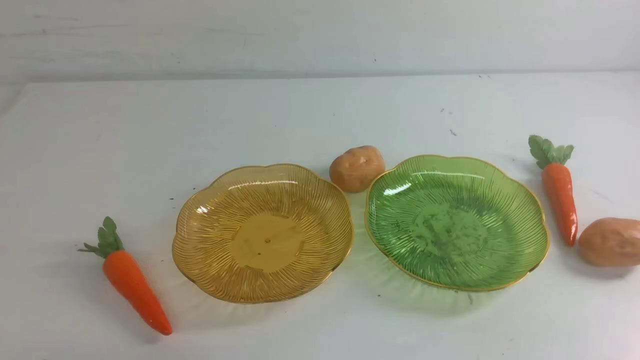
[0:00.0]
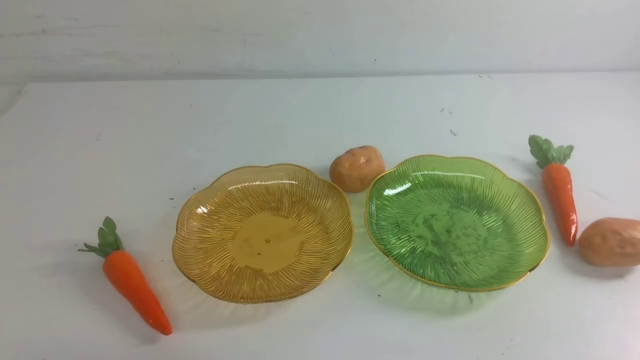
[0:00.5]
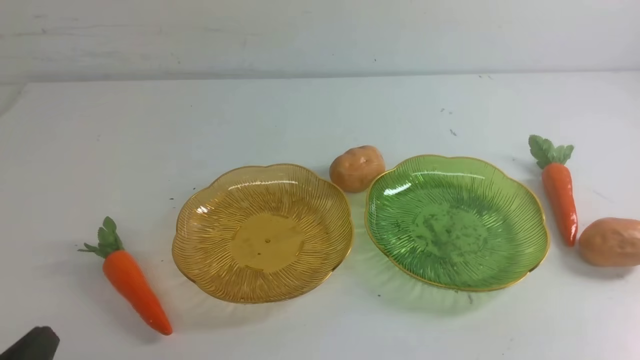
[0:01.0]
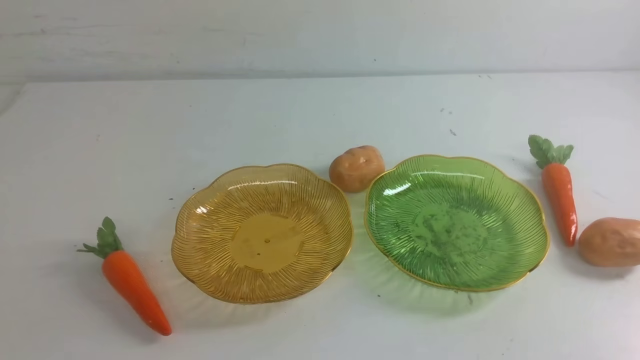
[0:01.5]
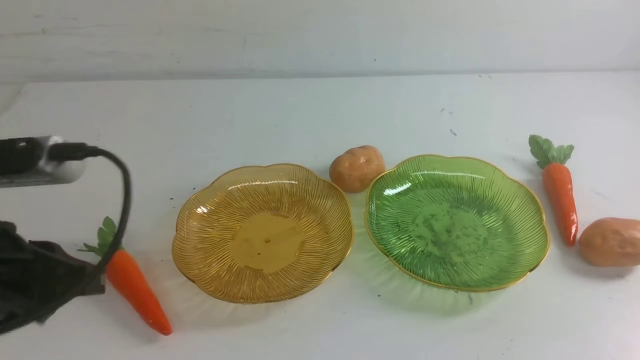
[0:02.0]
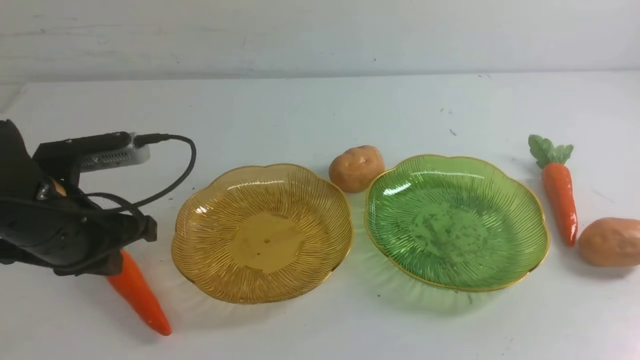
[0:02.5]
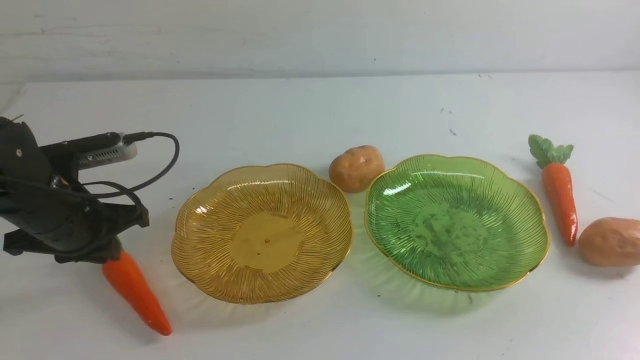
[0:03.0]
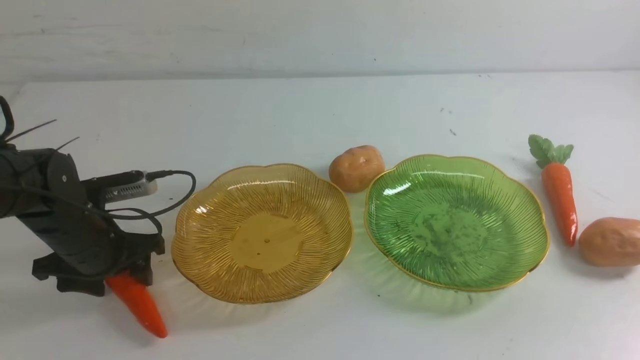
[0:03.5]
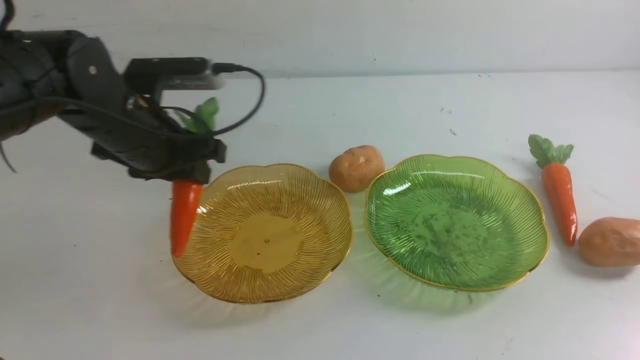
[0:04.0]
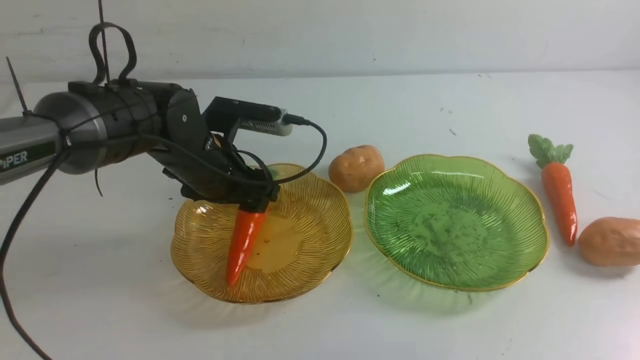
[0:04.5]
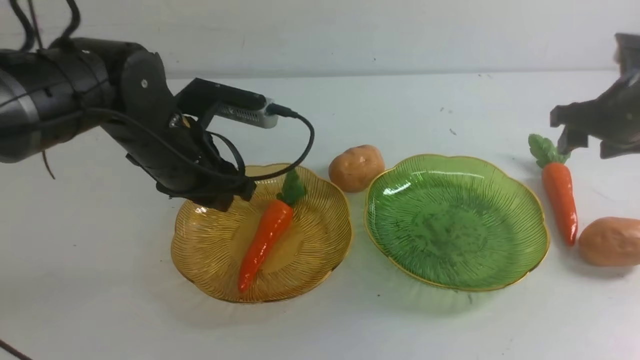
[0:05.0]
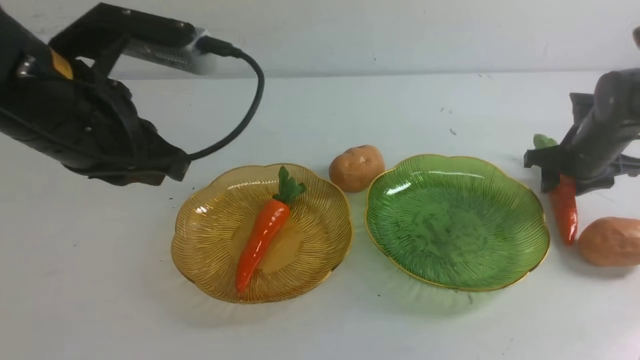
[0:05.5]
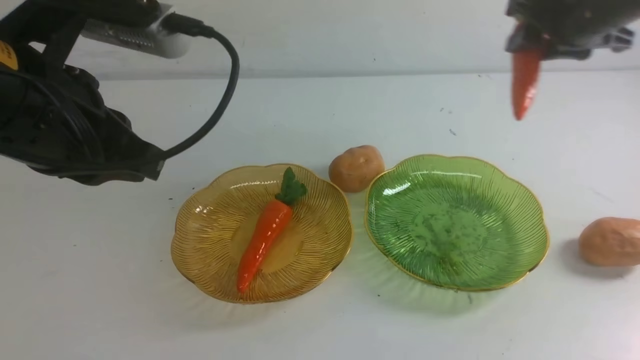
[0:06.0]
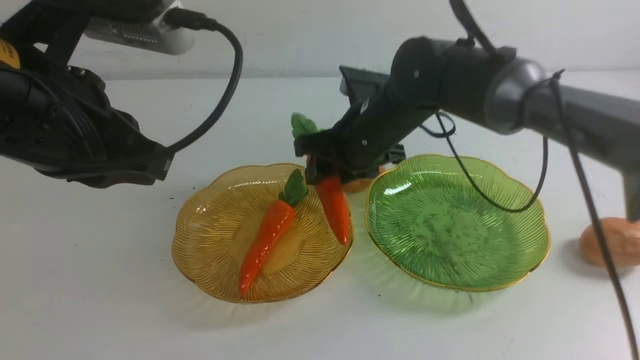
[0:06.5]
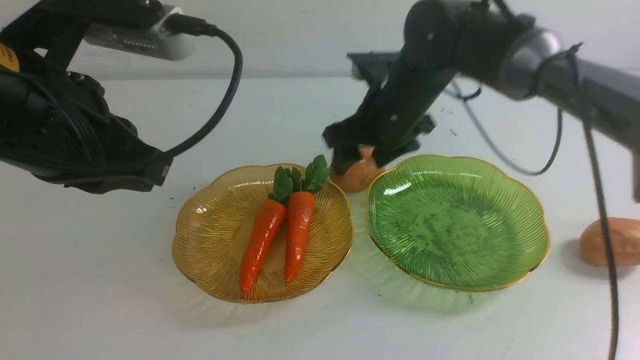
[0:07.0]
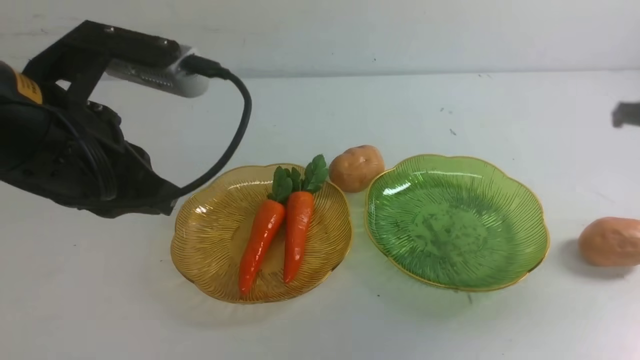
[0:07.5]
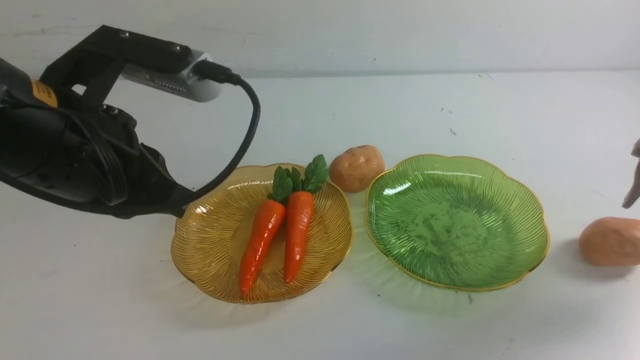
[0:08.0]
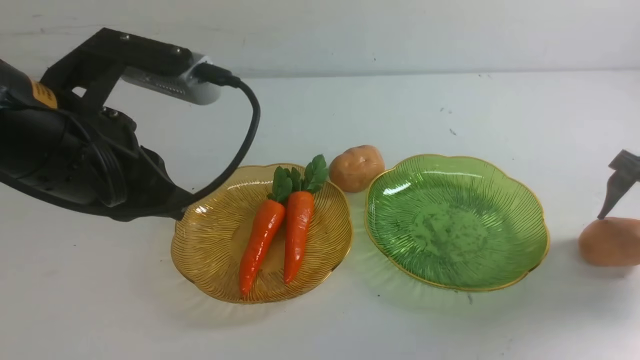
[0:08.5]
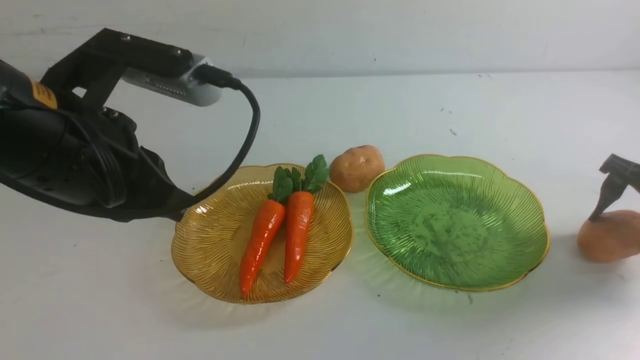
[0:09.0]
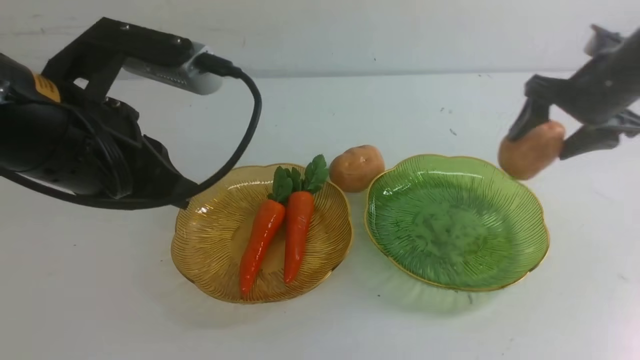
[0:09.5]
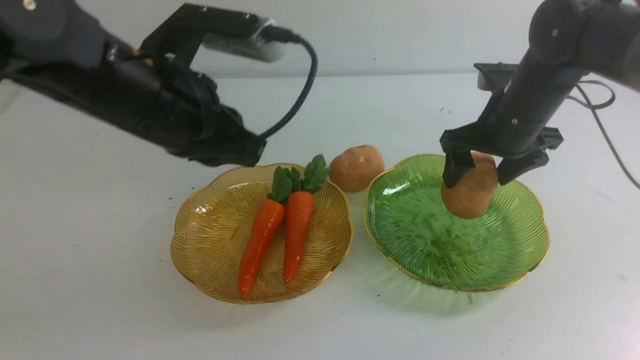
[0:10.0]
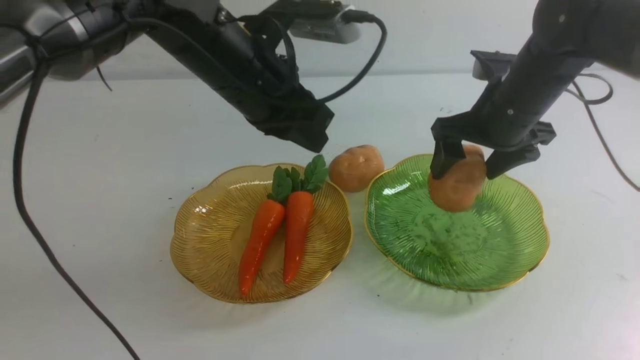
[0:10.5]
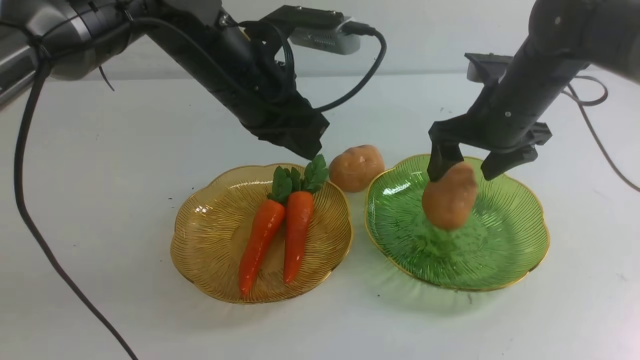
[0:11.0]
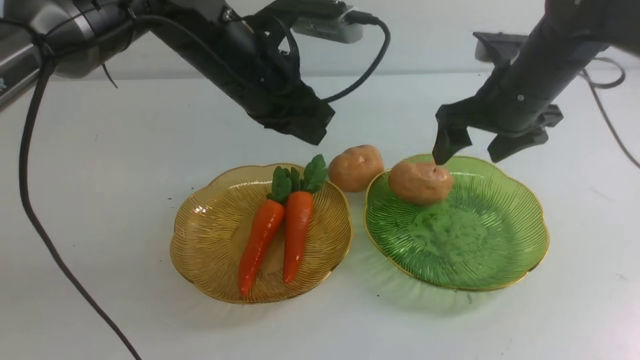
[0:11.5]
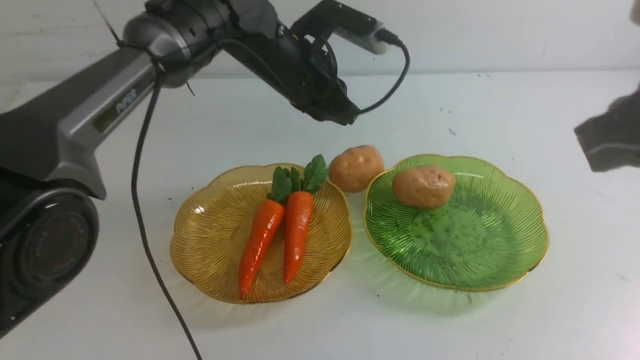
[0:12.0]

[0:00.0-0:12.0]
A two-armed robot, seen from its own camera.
Step, 0:00.0 to 0:04.5: use the left arm to grab a carrot and put it into the left plate.
Step, 0:05.0 to 0:06.5: use the right arm to grab a carrot and put it into the left plate.
Step, 0:07.0 to 0:11.0: Grab a potato with your right arm and put it on the right plate.
0:00.0 to 0:02.0: The left gripper heads upward and forward, covering approximately 20 cm.
0:02.0 to 0:04.0: The right gripper moves upward, roughly 15 cm, while the left gripper goes approximately 20 cm forward, and opens up.
0:04.0 to 0:06.0: The left gripper is displaced upward and backward by some 20 cm, and closes its fingers; the right gripper is displaced forward and to the left by some 35 cm, and opens its fingers.
0:06.0 to 0:08.0: The right gripper moves to the right, about 25 cm, and opens up.
0:08.0 to 0:10.0: The right gripper shifts about 20 cm to the left, while the left gripper shifts roughly 15 cm forward and to the right.
0:10.0 to 0:12.0: The right gripper travels backward and upward by about 25 cm, and closes up, while the left gripper heads downward, forward and to the right, covering about 20 cm, and opens.

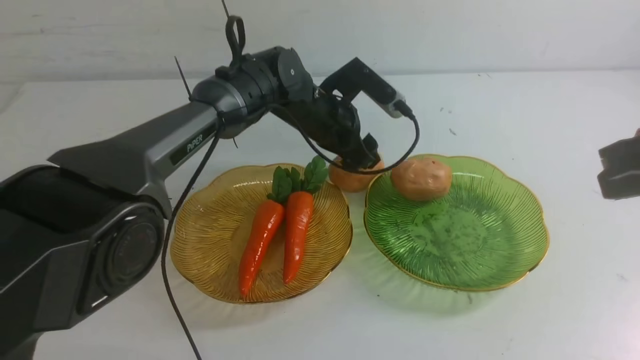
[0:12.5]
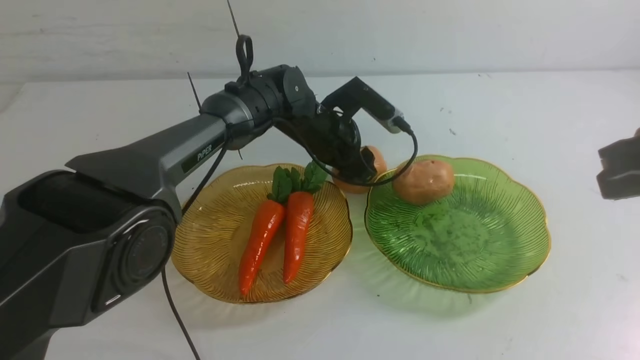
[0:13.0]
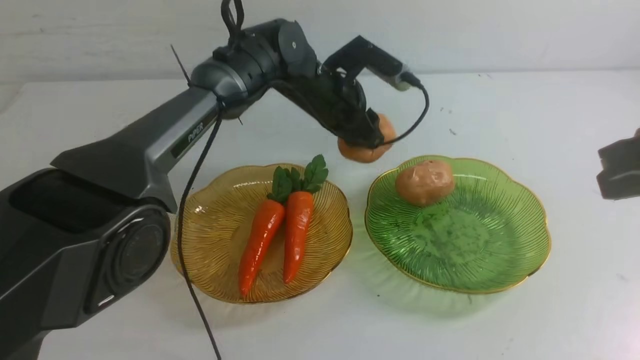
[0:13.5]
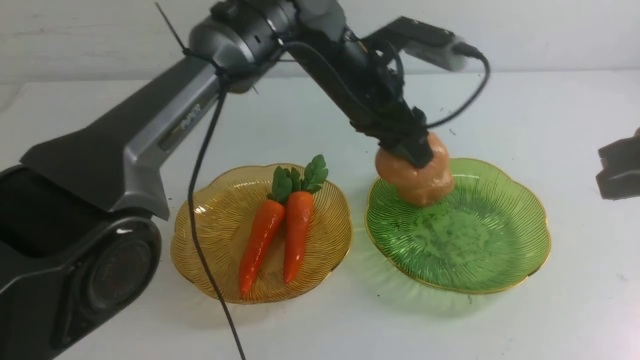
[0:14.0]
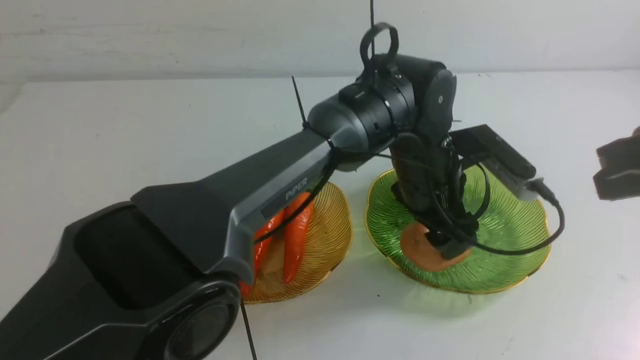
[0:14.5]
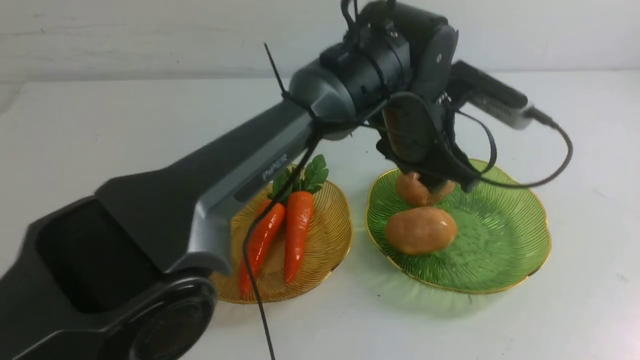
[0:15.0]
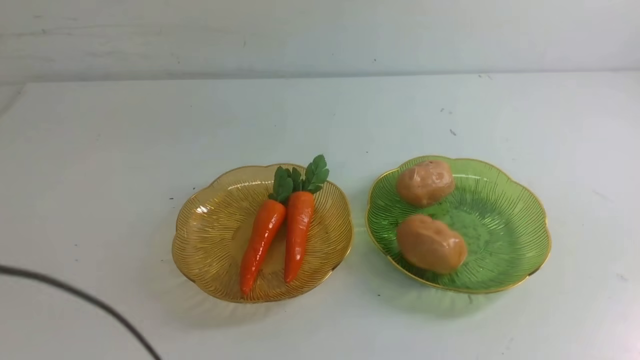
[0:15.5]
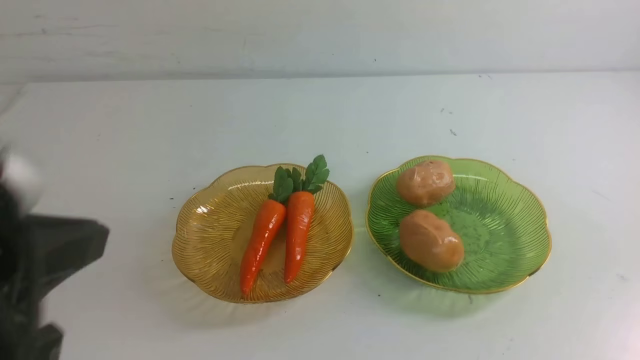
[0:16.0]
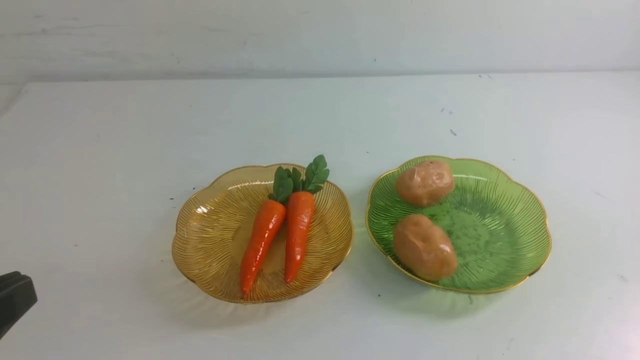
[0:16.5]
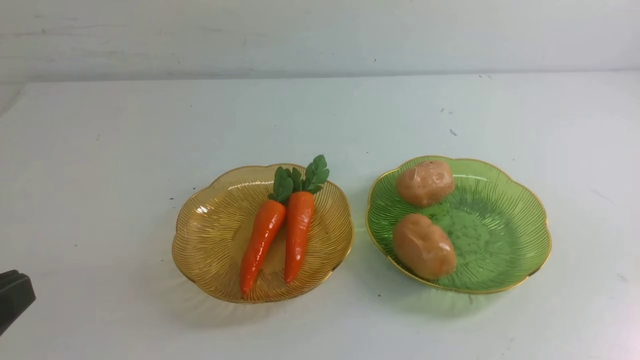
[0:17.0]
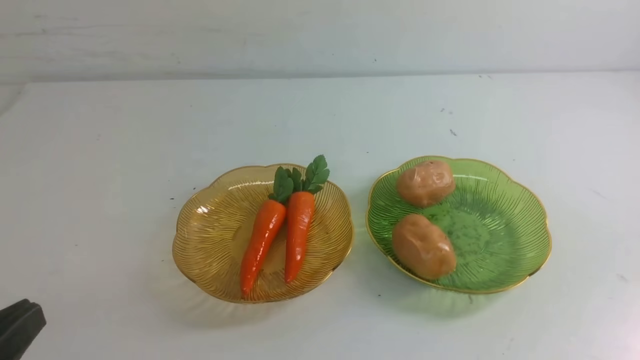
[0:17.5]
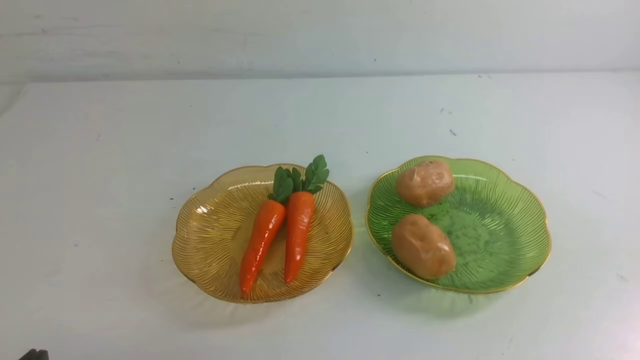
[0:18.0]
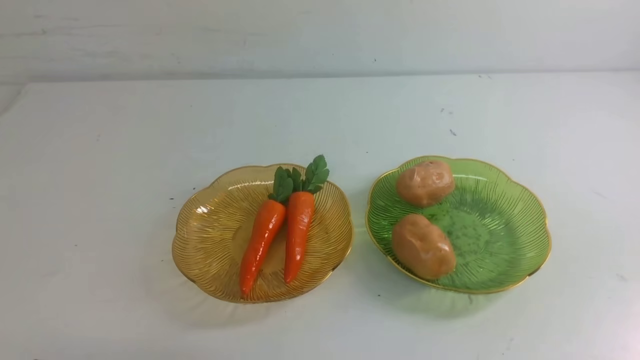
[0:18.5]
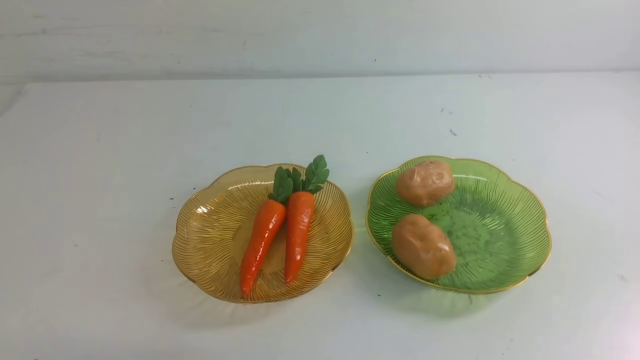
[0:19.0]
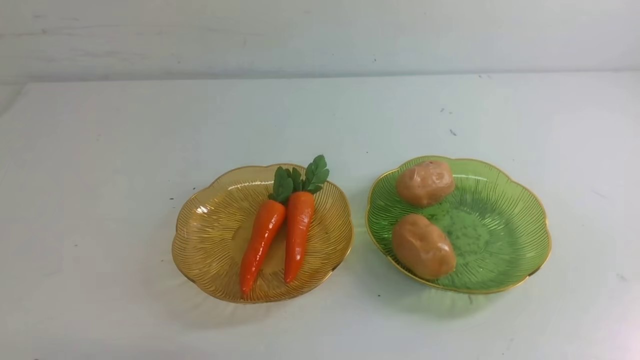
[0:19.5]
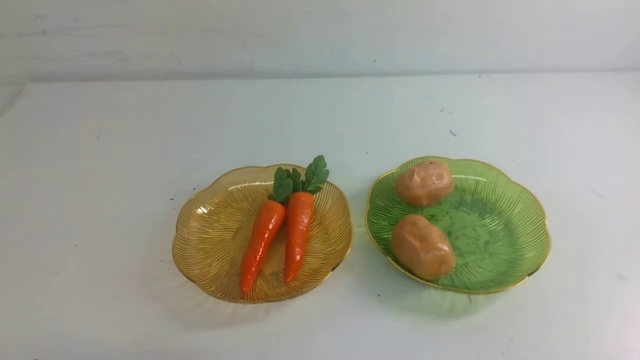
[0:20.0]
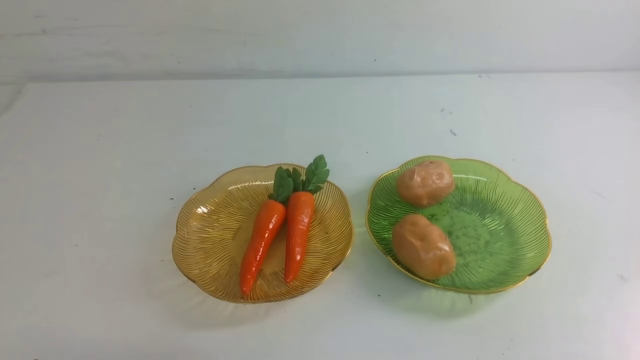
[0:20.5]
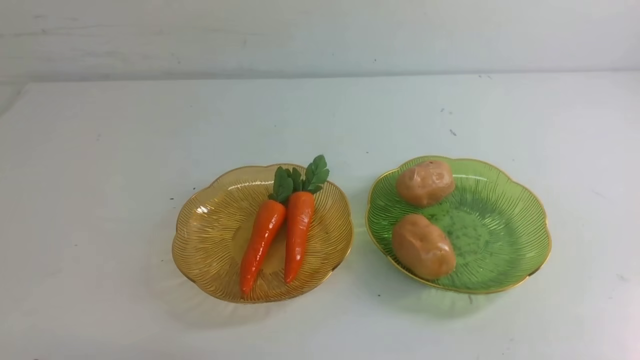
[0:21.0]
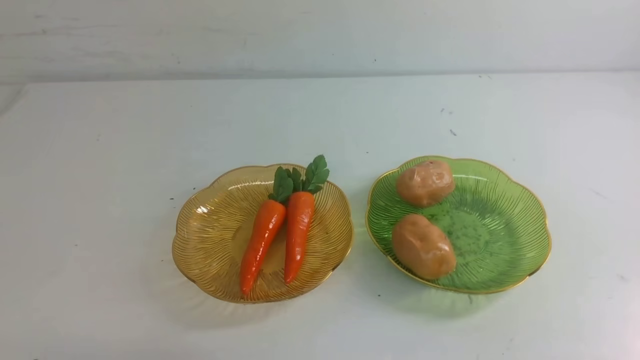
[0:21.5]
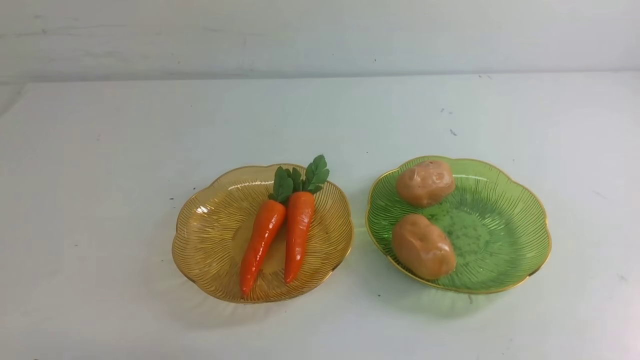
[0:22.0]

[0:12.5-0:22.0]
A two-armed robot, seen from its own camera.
Step, 0:12.5 to 0:14.5: Grab a potato with your left arm and put it on the right plate.
0:12.5 to 0:14.5: The left gripper travels backward, to the right and upward by some 15 cm.
0:14.5 to 0:16.5: The left gripper goes approximately 50 cm to the left and backward, and closes its fingers, while the right gripper travels backward by about 15 cm.
0:16.5 to 0:18.0: The left gripper shifts approximately 15 cm downward.
